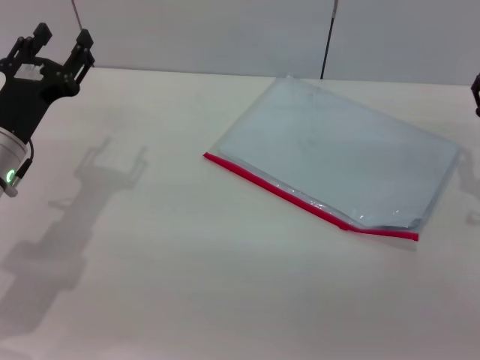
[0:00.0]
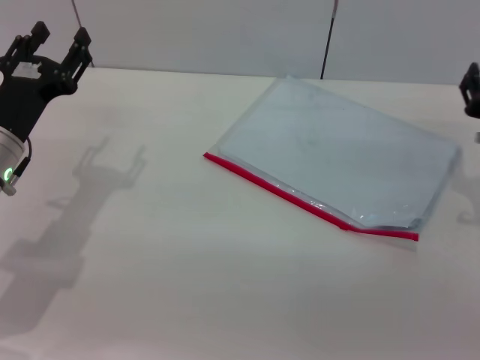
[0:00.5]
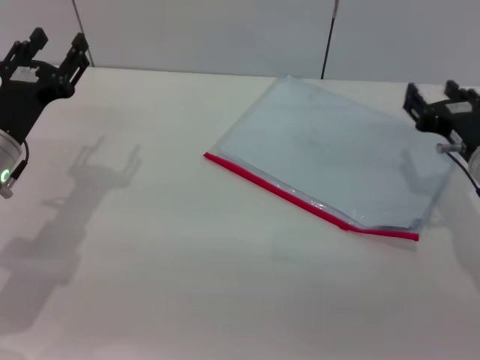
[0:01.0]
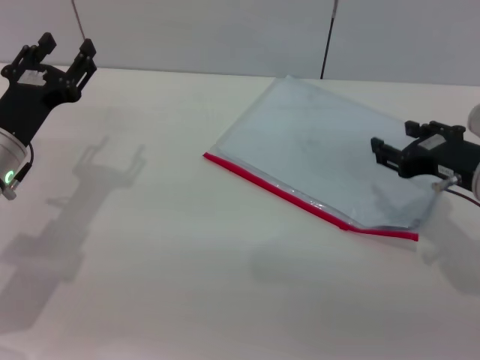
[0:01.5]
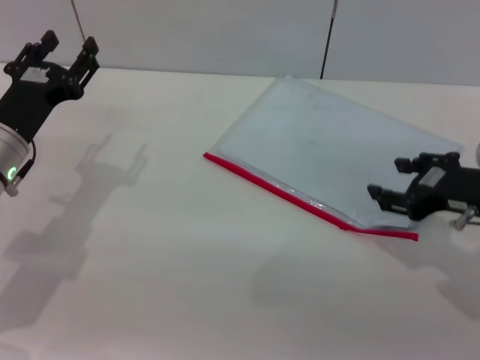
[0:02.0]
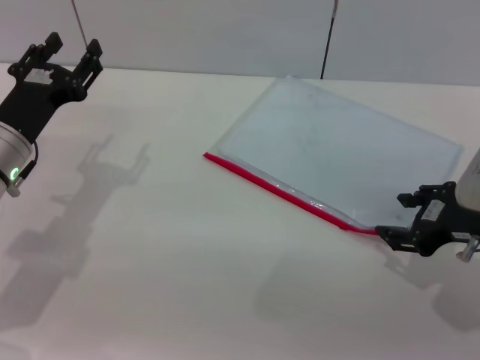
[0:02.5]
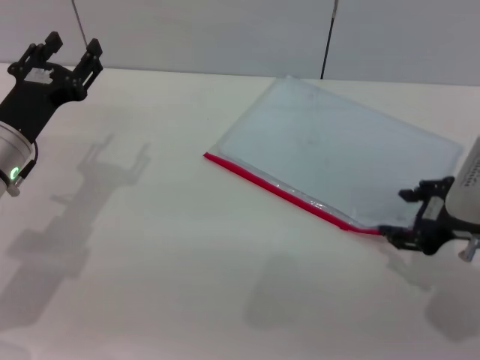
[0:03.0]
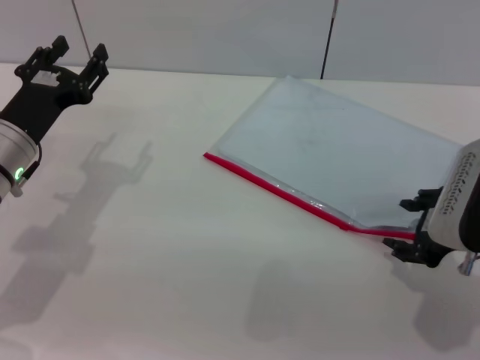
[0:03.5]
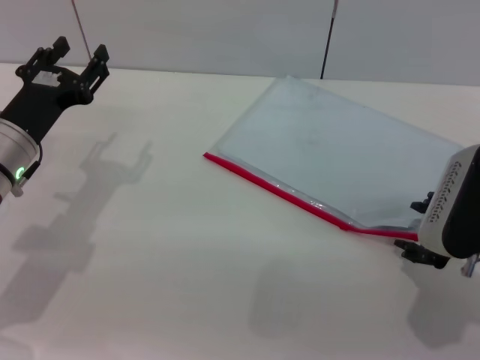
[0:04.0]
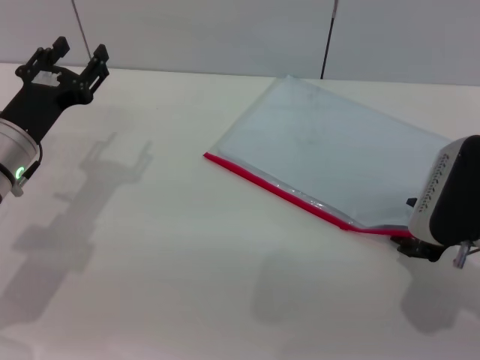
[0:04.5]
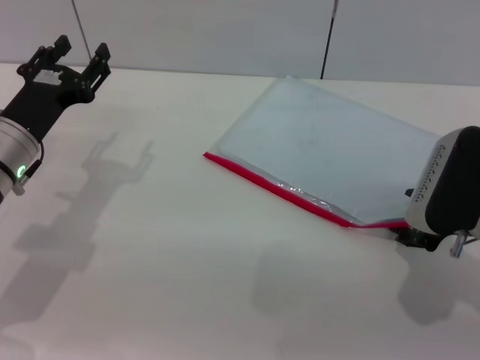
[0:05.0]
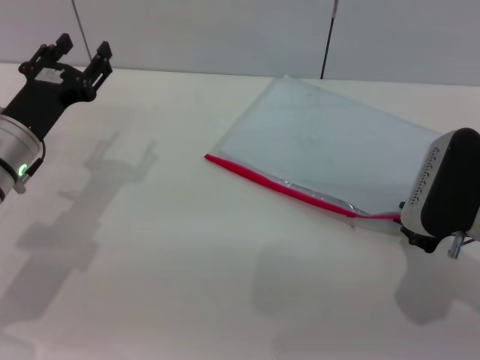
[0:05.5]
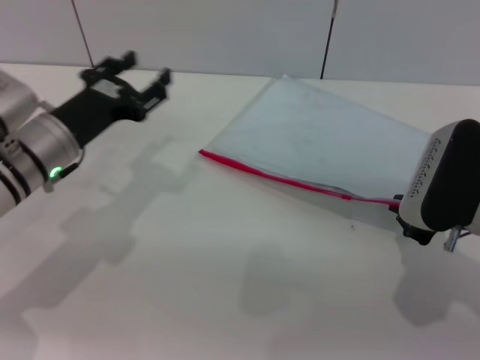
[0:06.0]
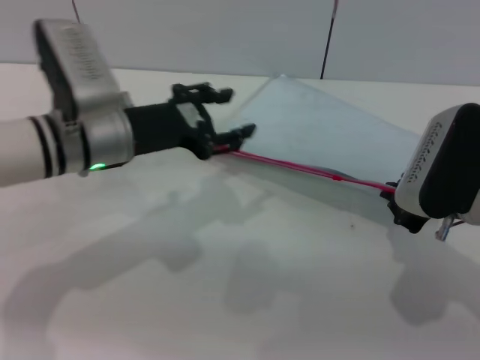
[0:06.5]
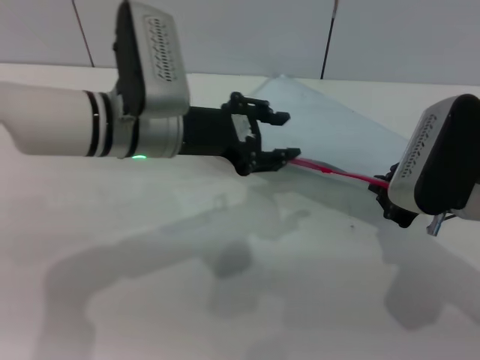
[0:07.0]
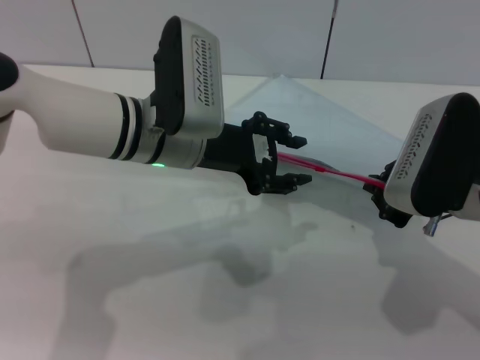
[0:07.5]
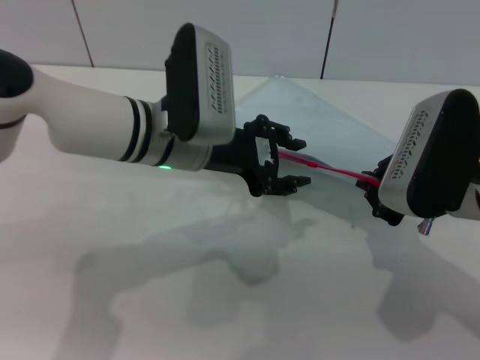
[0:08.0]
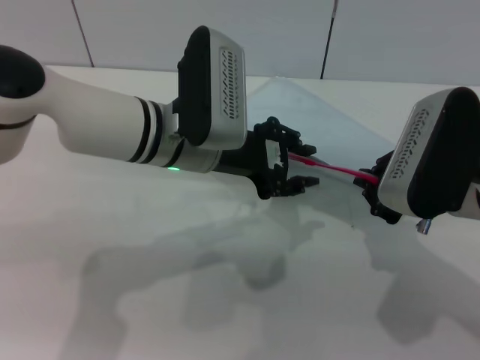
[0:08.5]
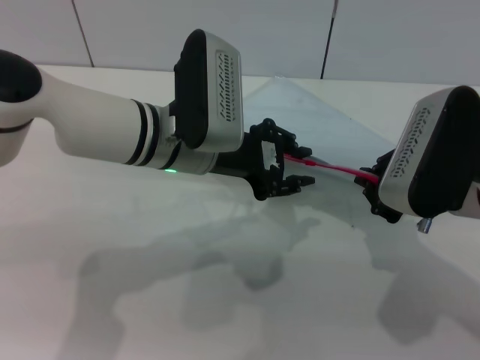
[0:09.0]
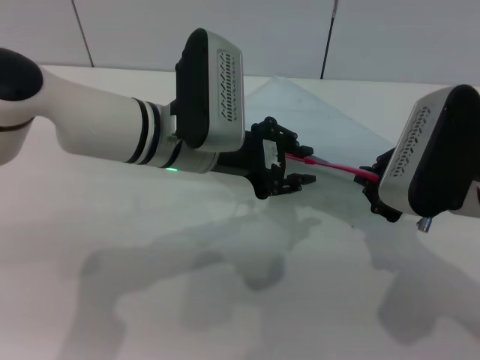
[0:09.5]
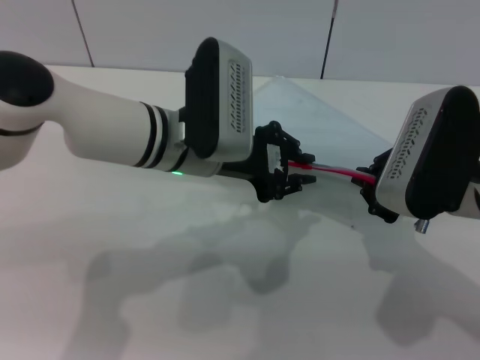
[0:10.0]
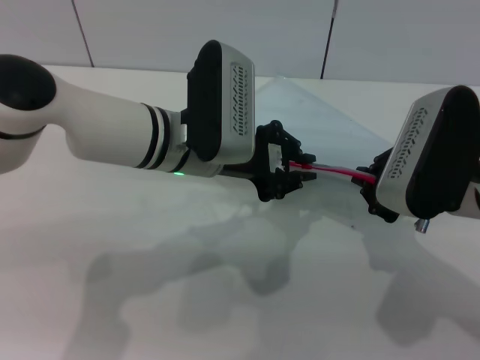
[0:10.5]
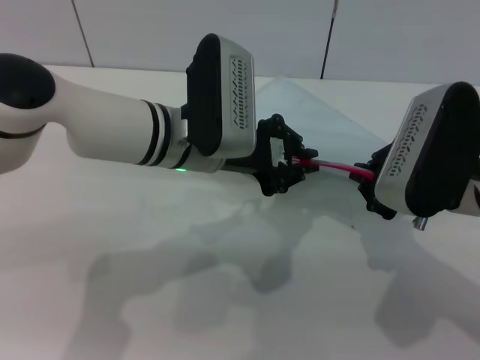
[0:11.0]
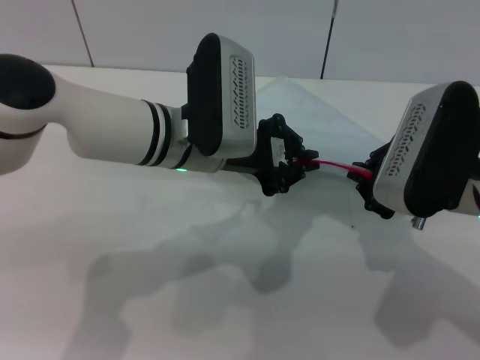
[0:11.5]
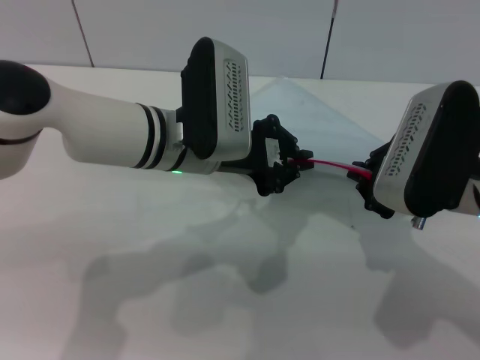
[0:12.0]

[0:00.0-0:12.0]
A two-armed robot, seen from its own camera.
Step, 0:00.0 to 0:07.0: Pick up the transparent plastic bag with the right gripper.
0:00.0 to 0:02.0: The right gripper ends up roughly 5 cm from where it was.
0:04.0 to 0:06.0: The right gripper closes up.
0:06.0 to 0:08.0: The left gripper is displaced to the right by some 15 cm.
0:08.0 to 0:10.0: The left gripper closes its fingers.
0:10.0 to 0:12.0: Neither gripper changes place.

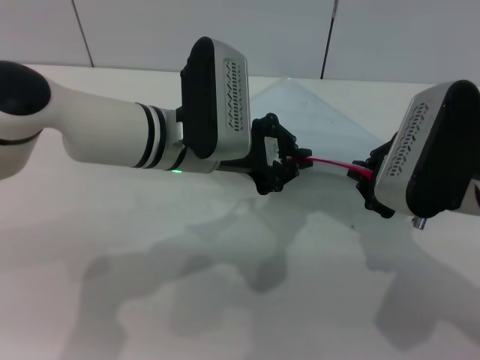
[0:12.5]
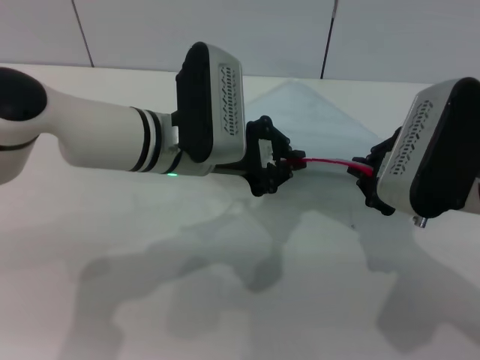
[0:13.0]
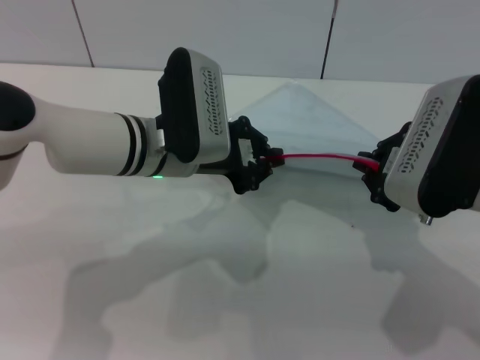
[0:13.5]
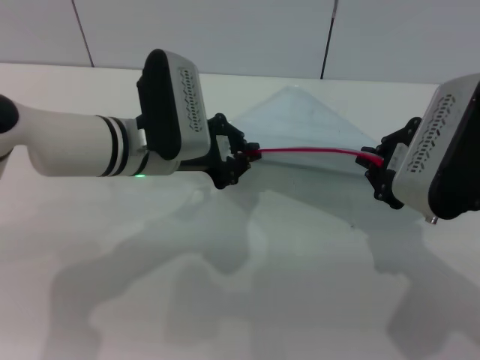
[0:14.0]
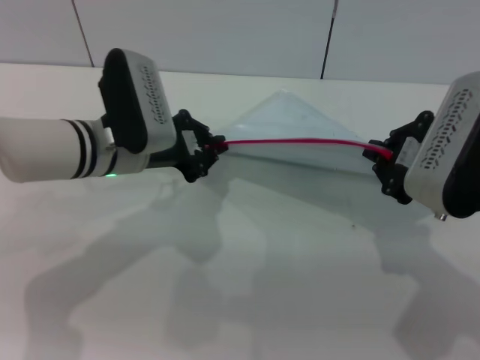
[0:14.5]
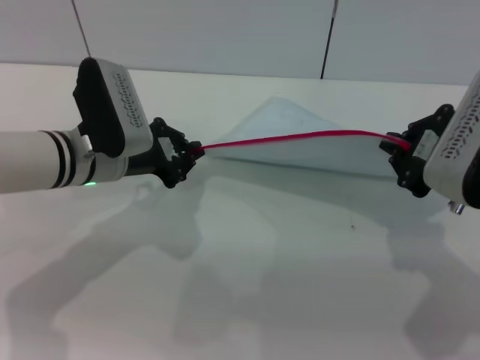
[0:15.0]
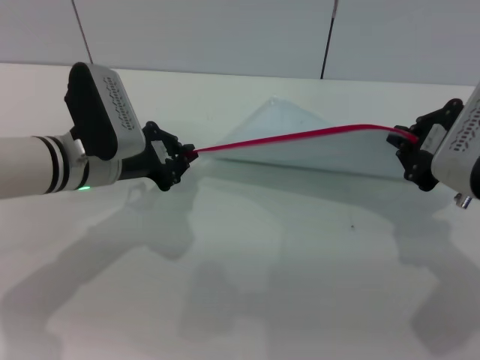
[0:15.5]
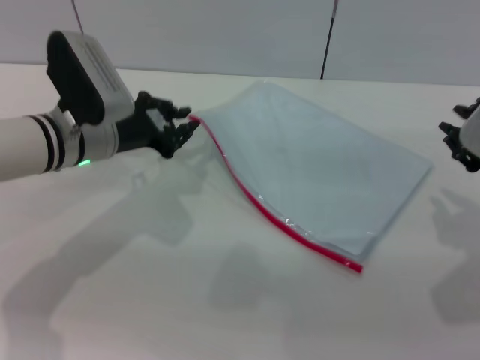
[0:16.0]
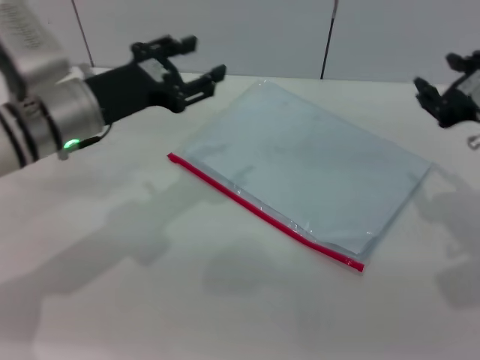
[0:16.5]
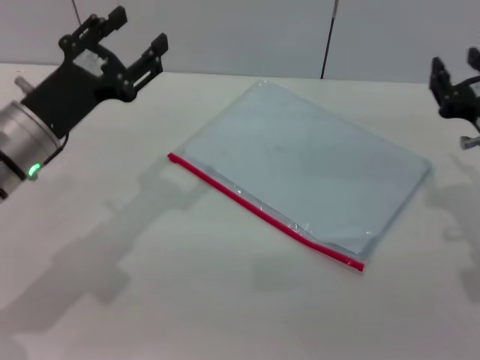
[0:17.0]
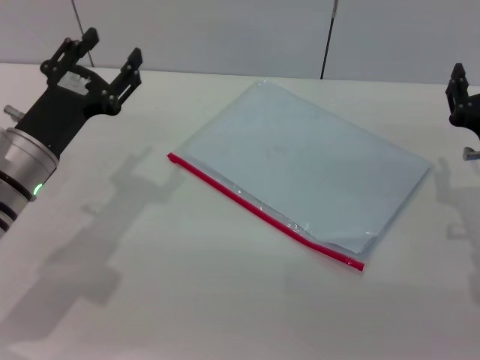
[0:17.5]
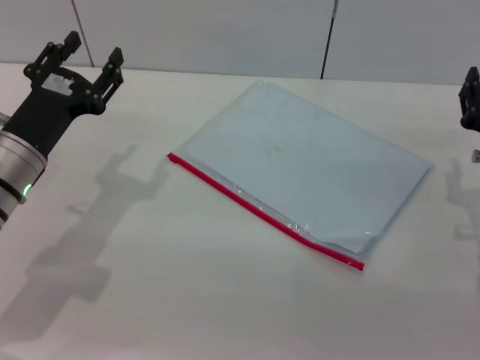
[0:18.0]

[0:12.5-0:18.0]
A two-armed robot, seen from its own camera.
Step, 0:12.5 to 0:15.5: Pulling up the zipper on the transparent plastic bag with the left gripper to close it.
Step, 0:16.0 to 0:16.5: Place the transparent plastic bag.
0:12.5 to 0:14.5: The left gripper moves to the left, roughly 10 cm.
0:16.0 to 0:18.0: The left gripper heads backward, covering roughly 5 cm, and opens its fingers; the right gripper goes about 10 cm downward, and opens up.

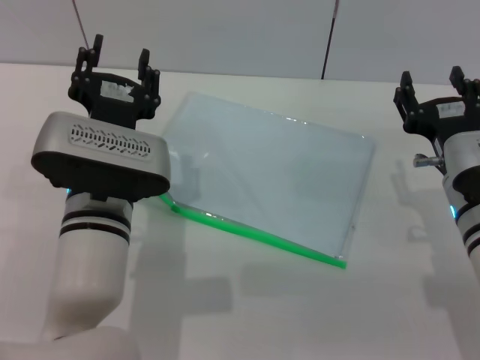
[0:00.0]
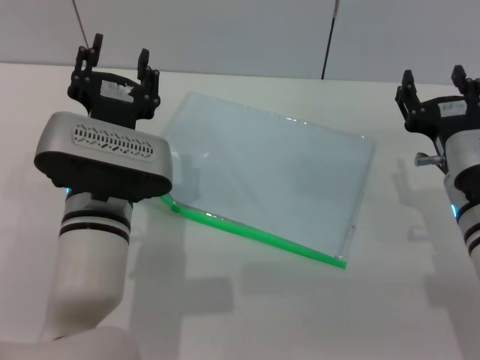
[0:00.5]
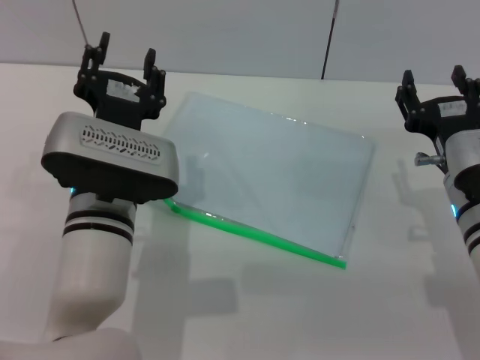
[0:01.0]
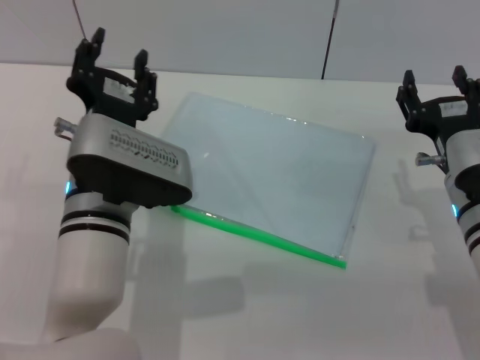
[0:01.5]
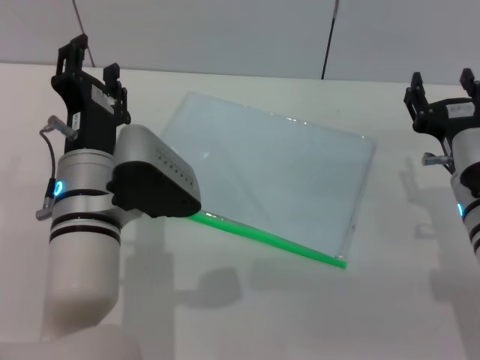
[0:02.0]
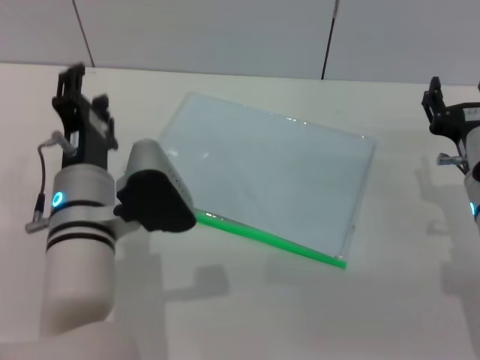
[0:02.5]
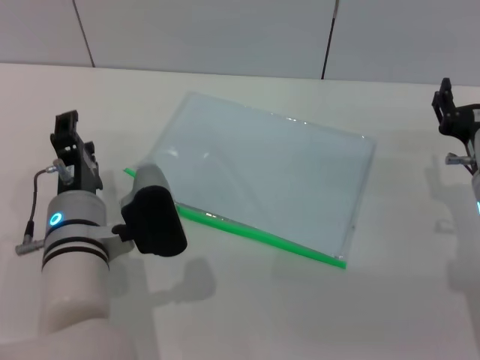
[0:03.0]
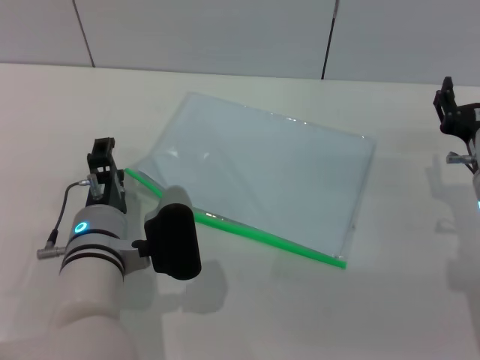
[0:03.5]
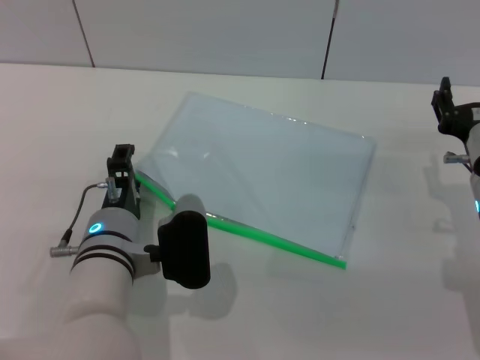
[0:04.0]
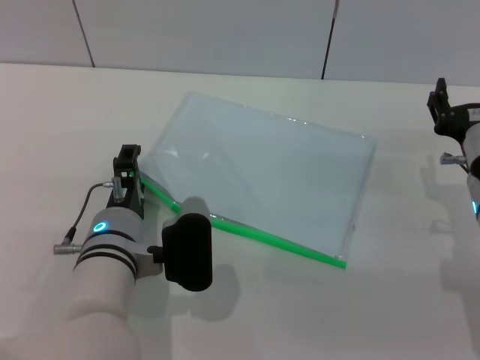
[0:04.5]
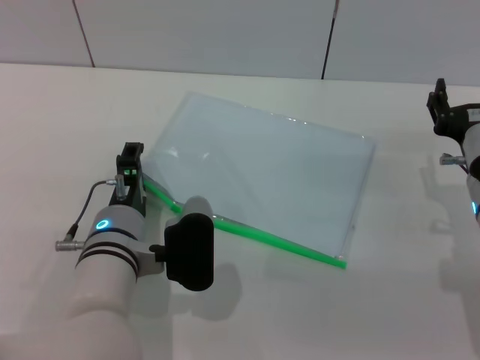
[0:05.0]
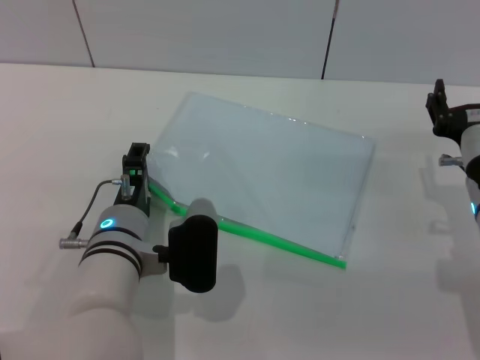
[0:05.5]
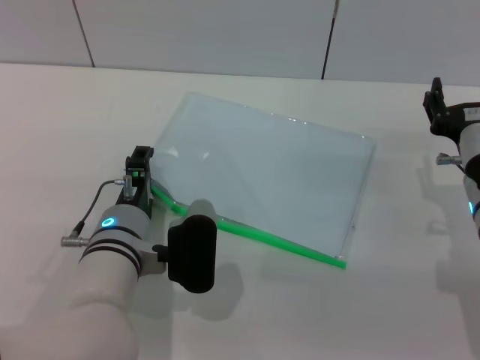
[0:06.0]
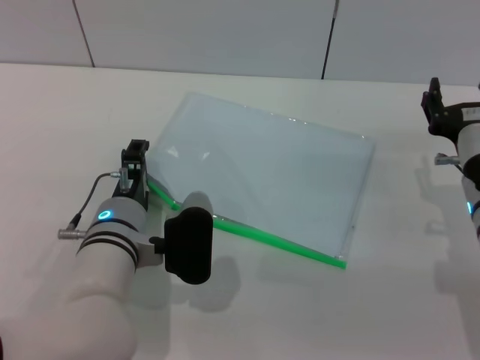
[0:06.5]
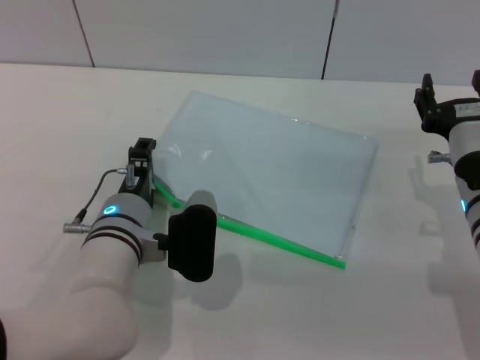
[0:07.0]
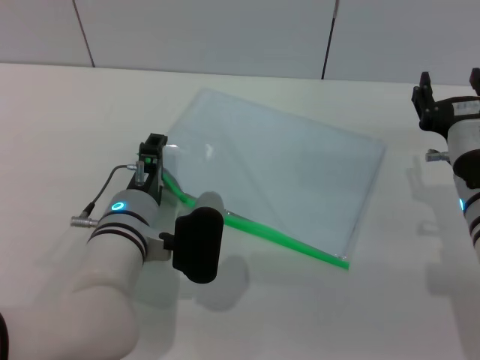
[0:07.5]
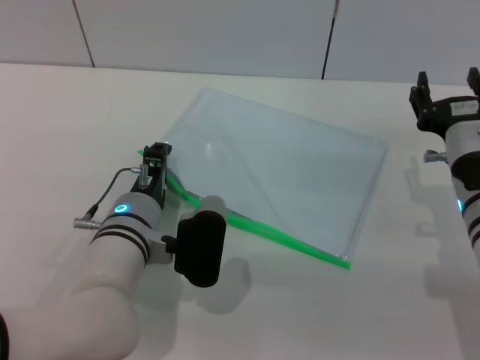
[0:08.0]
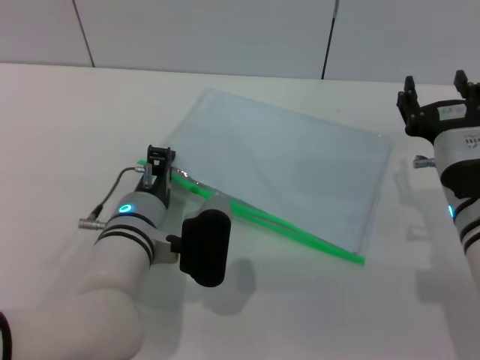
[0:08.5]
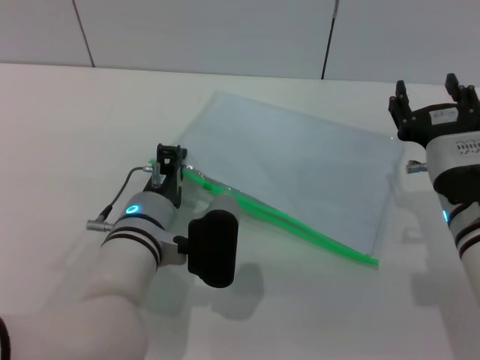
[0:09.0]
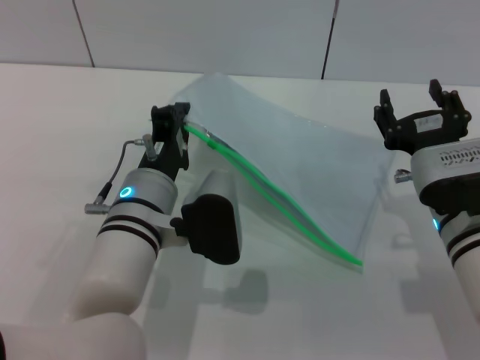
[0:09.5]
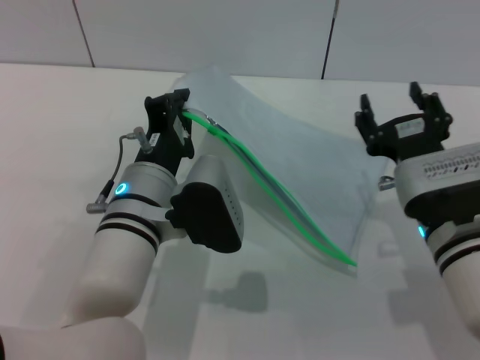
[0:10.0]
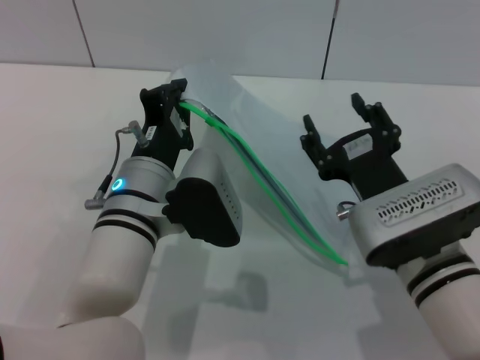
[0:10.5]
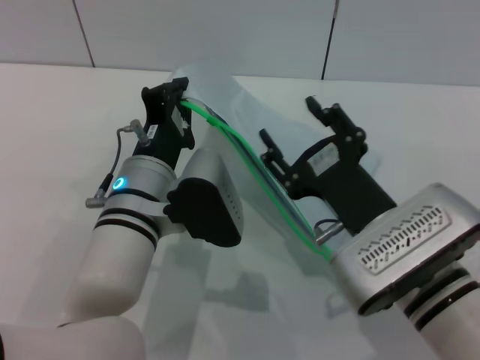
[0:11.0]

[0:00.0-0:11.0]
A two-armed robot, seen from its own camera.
Step, 0:00.0 to 0:09.0: Pick up the transparent plastic bag with the left gripper.
0:02.0 to 0:03.5: The left gripper moves downward, roughly 5 cm.
0:03.5 to 0:07.5: There are only small adjustments of the grippers.
0:07.5 to 0:09.0: The left gripper closes.
0:09.0 to 0:11.0: The right gripper shifts about 10 cm to the left and backward.
